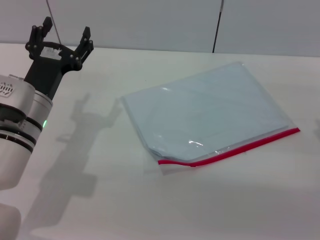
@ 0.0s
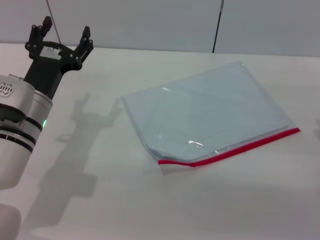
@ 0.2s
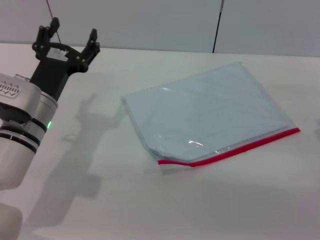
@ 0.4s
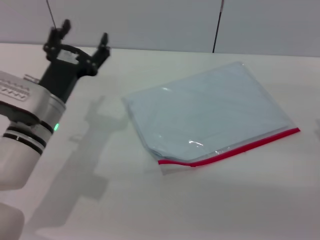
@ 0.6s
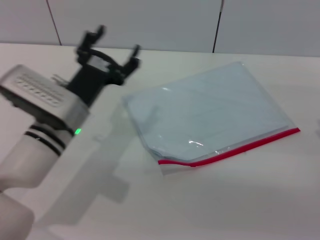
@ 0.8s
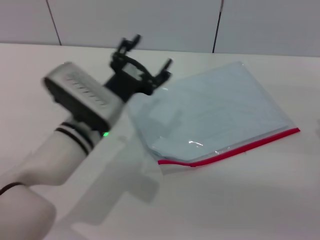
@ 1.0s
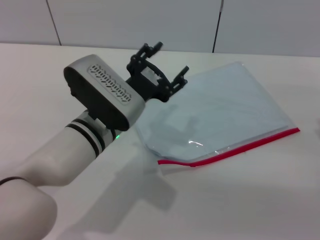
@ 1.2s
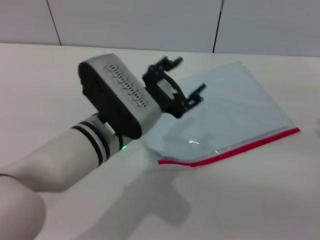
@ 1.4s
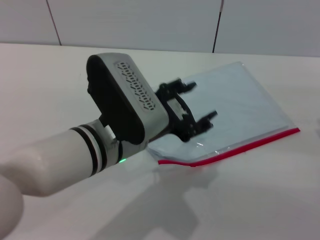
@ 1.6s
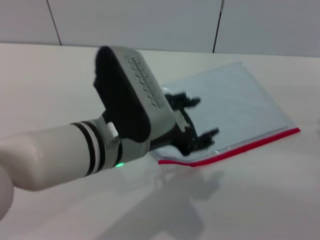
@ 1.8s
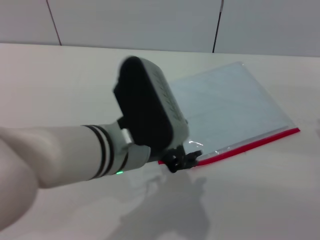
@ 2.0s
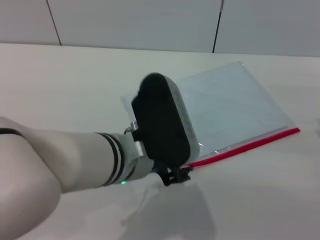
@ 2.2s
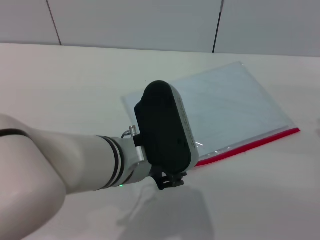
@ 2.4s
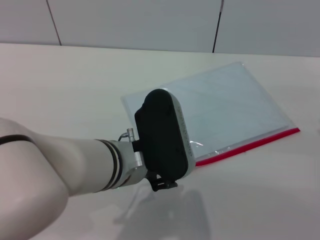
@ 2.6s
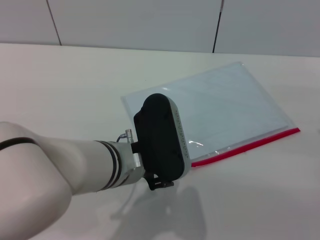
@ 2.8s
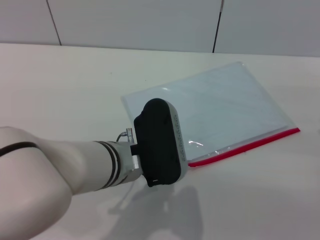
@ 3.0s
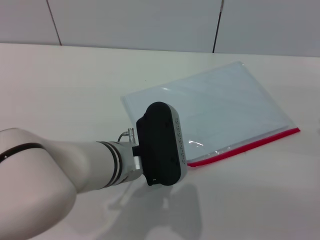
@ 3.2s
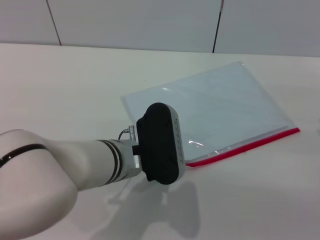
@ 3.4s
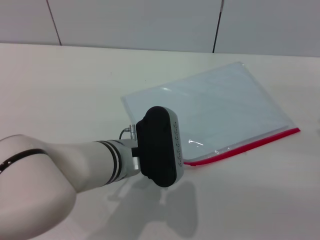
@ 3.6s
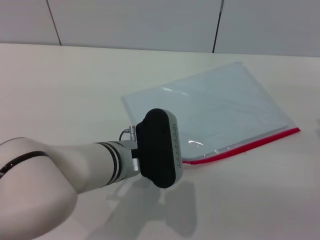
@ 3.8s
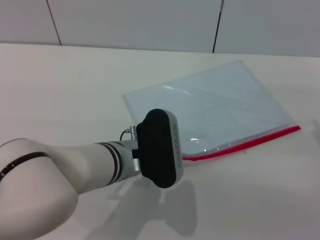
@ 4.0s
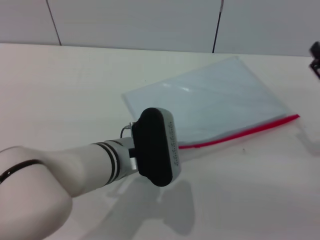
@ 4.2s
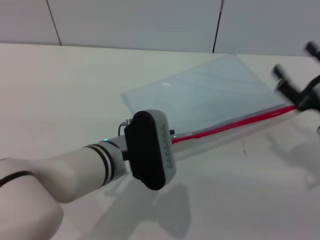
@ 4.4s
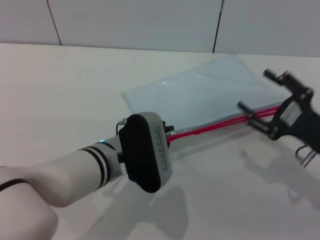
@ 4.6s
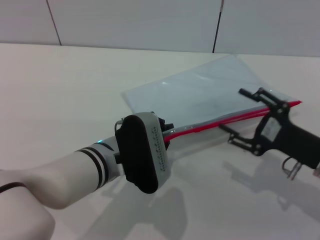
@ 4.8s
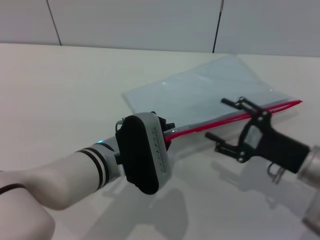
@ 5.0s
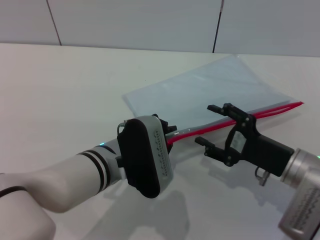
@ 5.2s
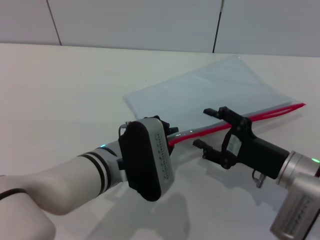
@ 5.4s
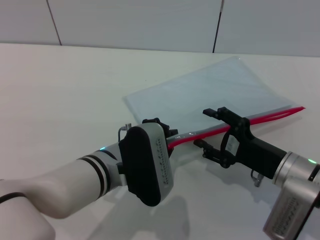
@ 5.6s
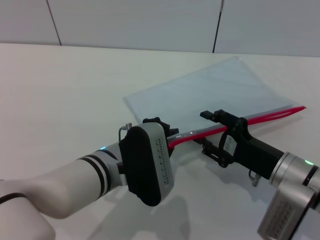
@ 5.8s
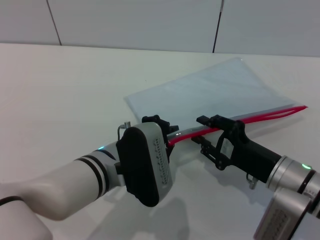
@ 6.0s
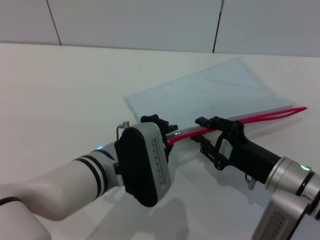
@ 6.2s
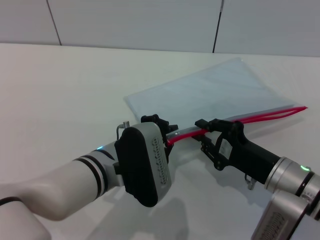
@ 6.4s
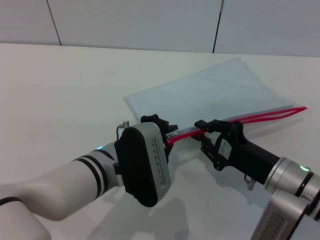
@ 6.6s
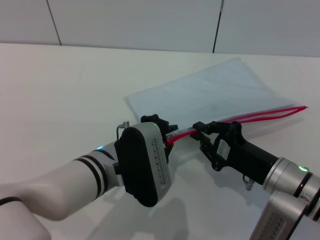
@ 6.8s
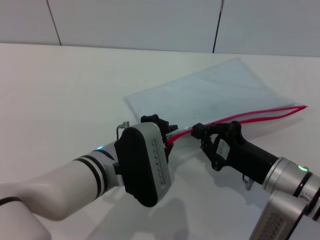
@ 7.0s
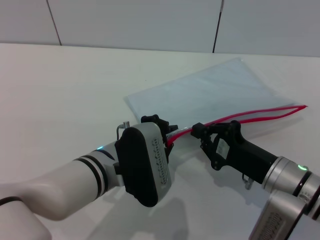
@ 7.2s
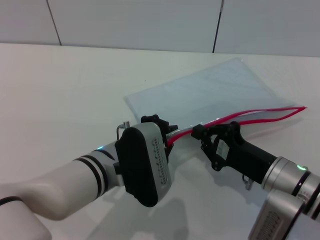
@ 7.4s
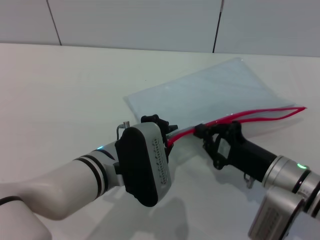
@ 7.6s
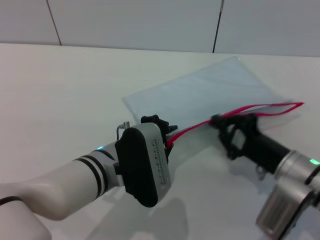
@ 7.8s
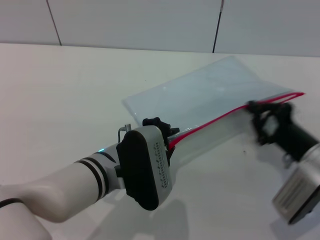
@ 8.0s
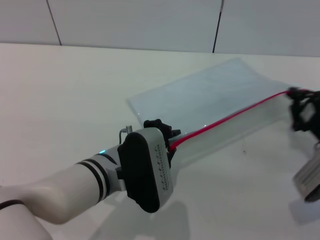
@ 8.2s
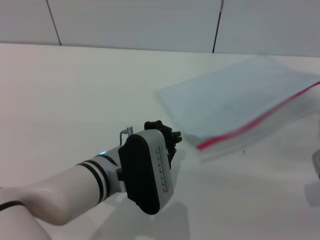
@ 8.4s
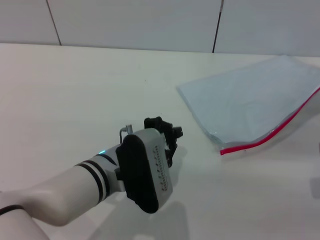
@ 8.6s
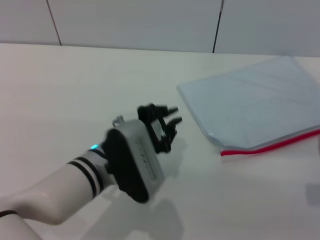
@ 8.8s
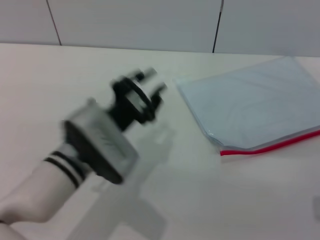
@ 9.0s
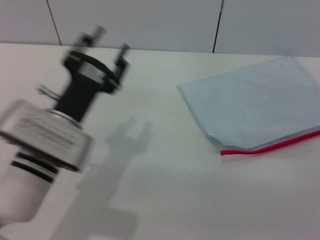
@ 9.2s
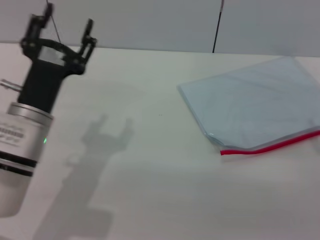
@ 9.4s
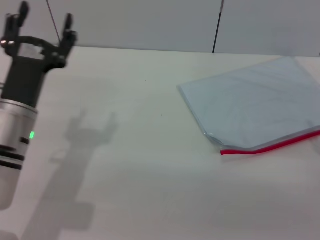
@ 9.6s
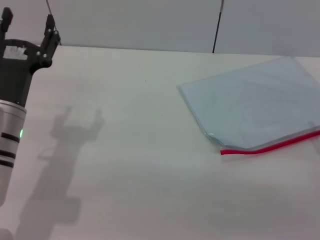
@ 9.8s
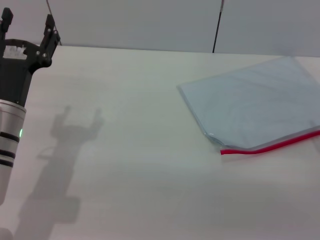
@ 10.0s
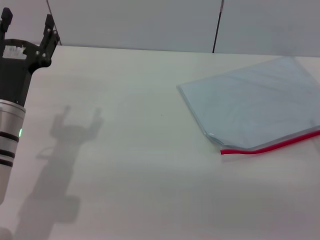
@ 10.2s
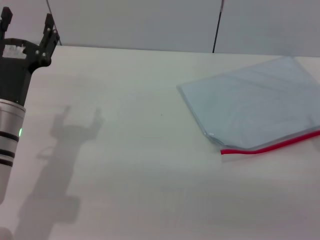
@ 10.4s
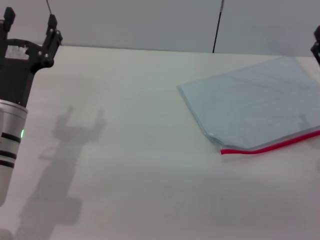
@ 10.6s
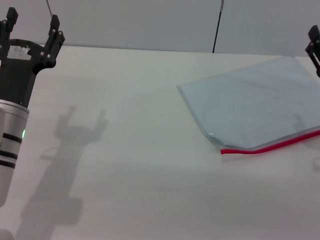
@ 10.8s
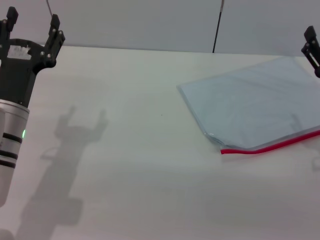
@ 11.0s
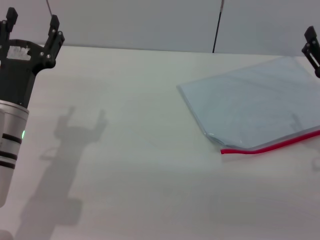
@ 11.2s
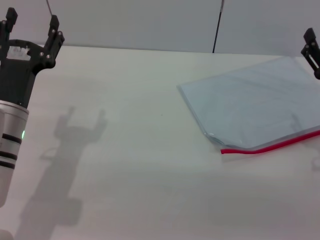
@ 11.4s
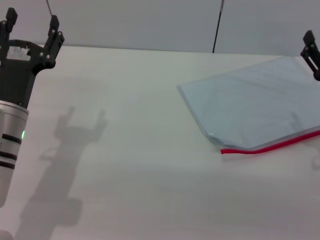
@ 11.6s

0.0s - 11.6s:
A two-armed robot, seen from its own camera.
Step, 0.0s - 4.8s: Pick up the transparent plastic bag with the left gripper.
Step, 5.0s - 8.2s: Pulling up the zipper on the transparent plastic bag with the right gripper to close it.
Step, 8.4s - 8.8s: Place the transparent plastic bag.
0.0s - 1.4s: The left gripper goes some 10 cm to the right.
2.8s - 4.4s: The left gripper moves some 5 cm, and closes up.
4.4s - 5.8s: The right gripper goes some 10 cm to the left.
5.8s - 7.2s: The right gripper closes its fingers.
7.2s - 8.8s: The right gripper goes roughly 10 cm to the right.
8.8s - 10.2s: The right gripper opens up; the left gripper shifts roughly 15 cm to the left, and opens up.
10.2s - 11.6s: The grippers make only small movements.
